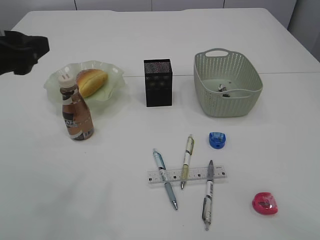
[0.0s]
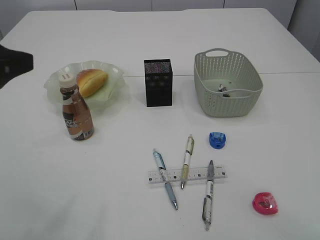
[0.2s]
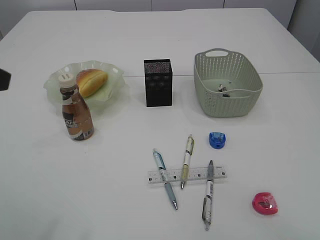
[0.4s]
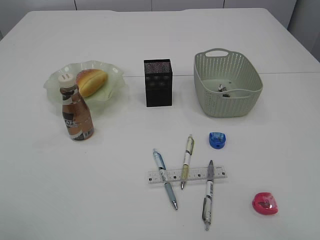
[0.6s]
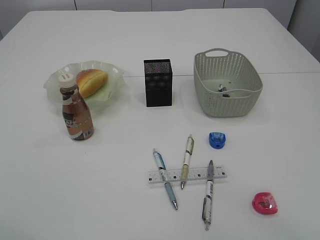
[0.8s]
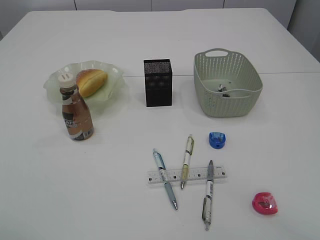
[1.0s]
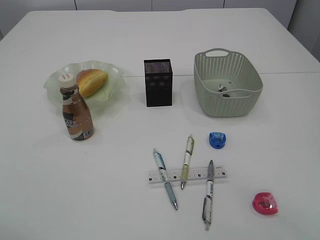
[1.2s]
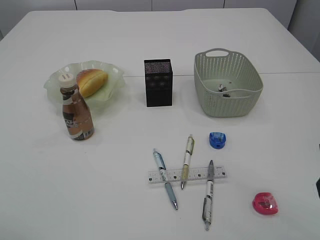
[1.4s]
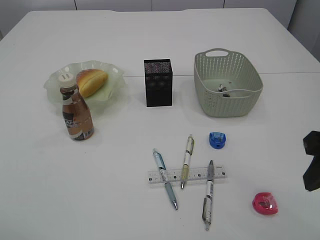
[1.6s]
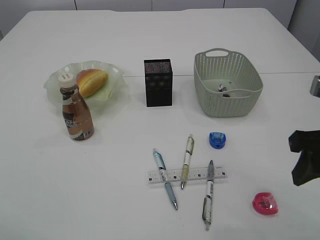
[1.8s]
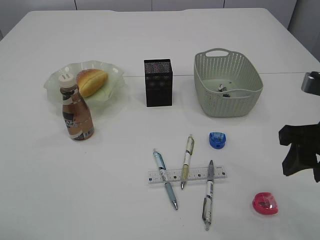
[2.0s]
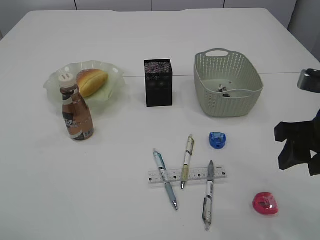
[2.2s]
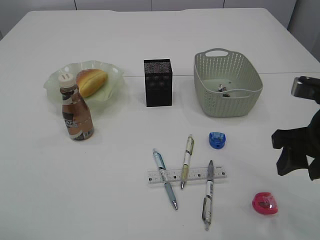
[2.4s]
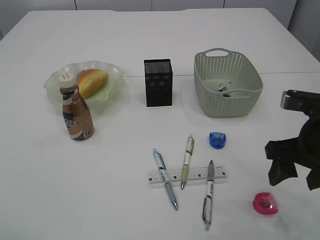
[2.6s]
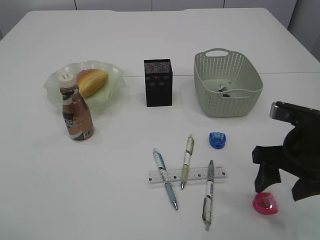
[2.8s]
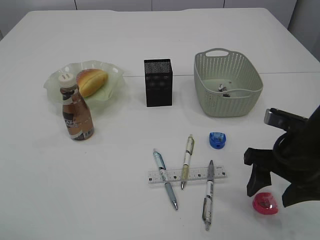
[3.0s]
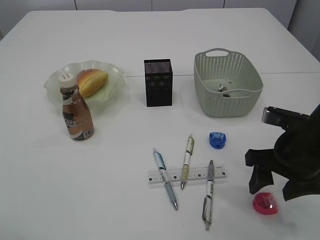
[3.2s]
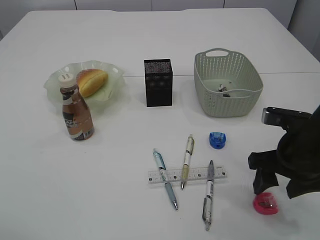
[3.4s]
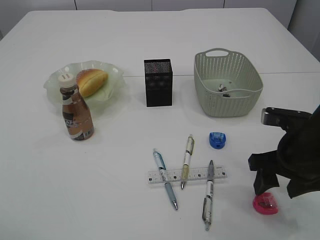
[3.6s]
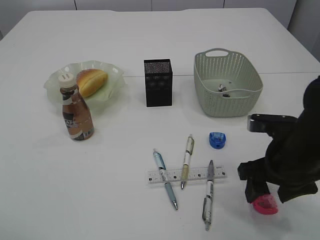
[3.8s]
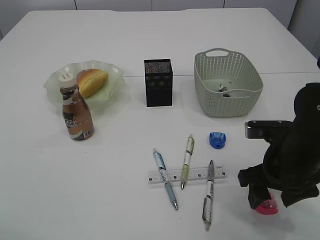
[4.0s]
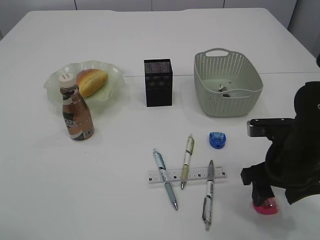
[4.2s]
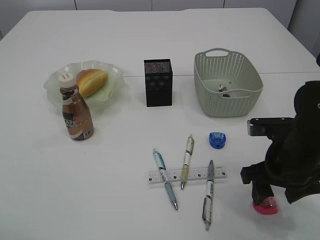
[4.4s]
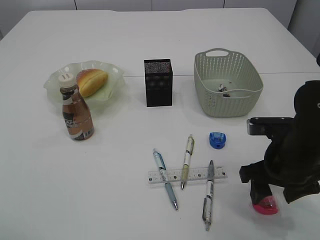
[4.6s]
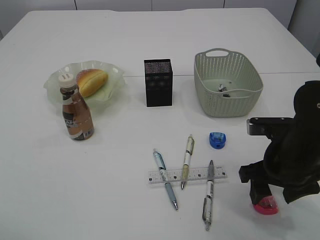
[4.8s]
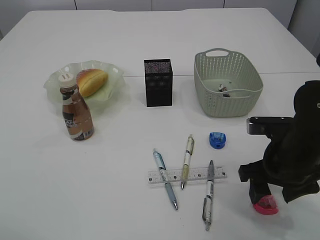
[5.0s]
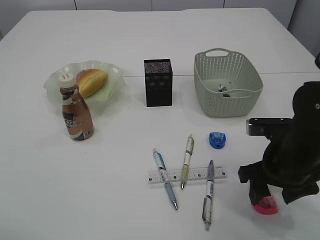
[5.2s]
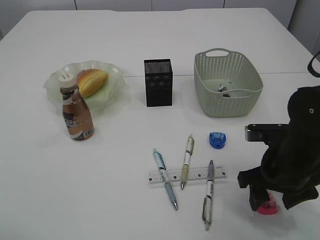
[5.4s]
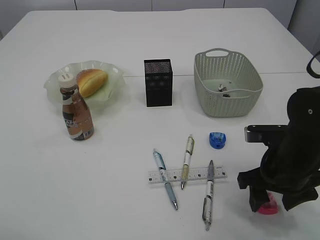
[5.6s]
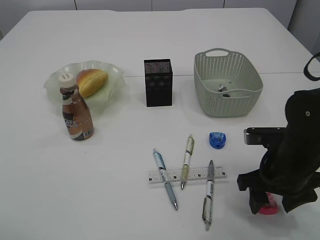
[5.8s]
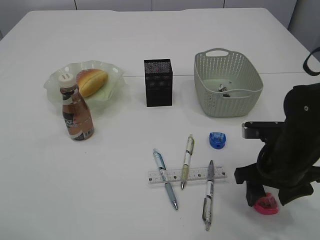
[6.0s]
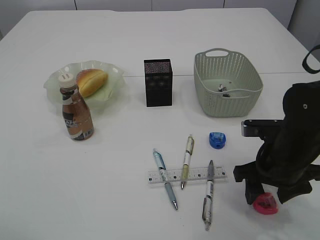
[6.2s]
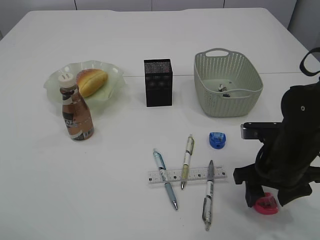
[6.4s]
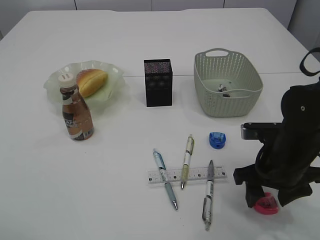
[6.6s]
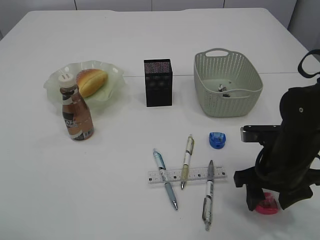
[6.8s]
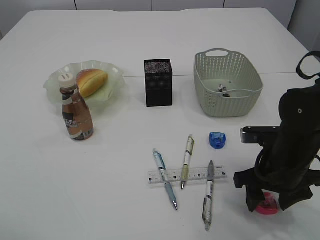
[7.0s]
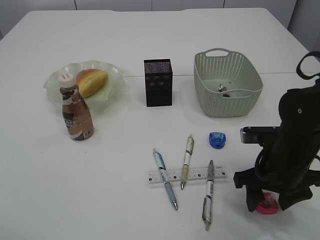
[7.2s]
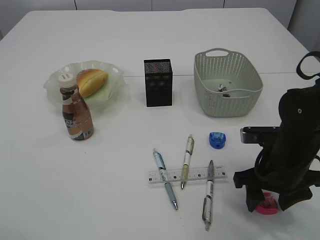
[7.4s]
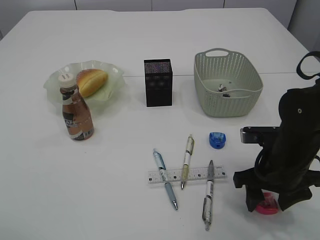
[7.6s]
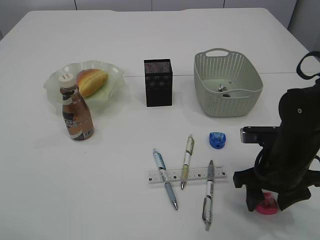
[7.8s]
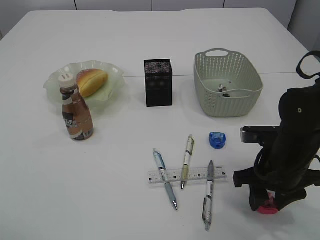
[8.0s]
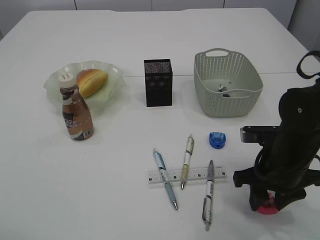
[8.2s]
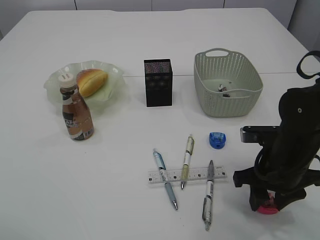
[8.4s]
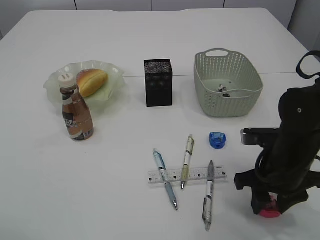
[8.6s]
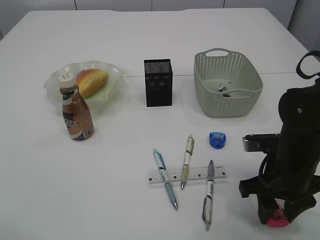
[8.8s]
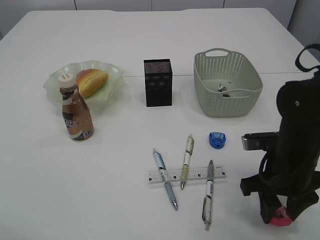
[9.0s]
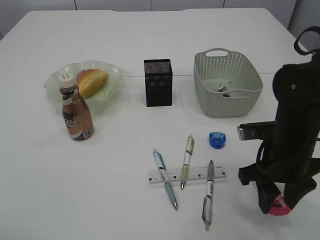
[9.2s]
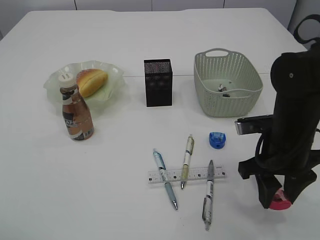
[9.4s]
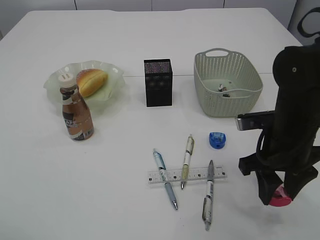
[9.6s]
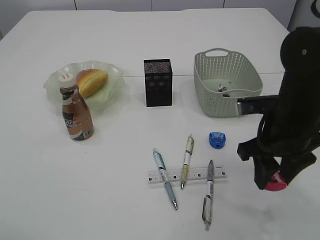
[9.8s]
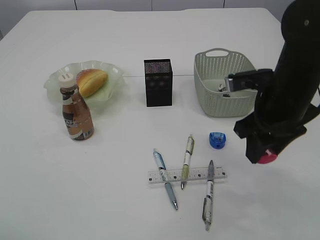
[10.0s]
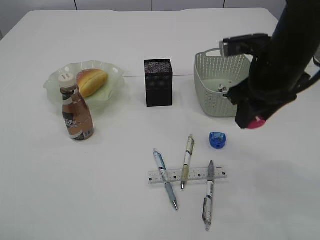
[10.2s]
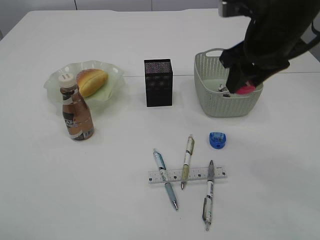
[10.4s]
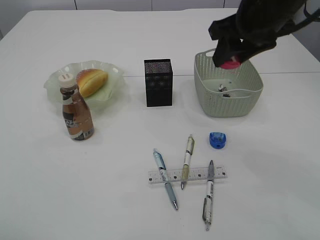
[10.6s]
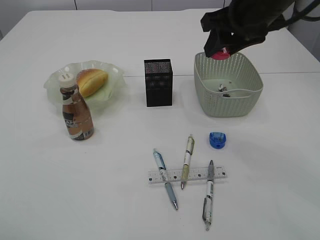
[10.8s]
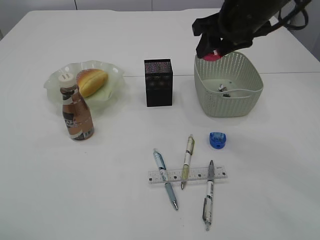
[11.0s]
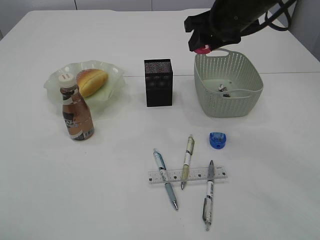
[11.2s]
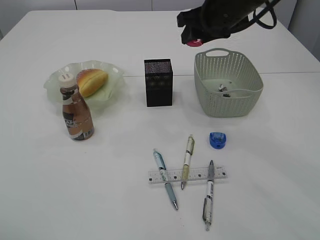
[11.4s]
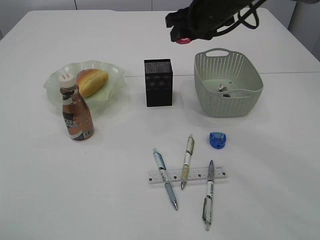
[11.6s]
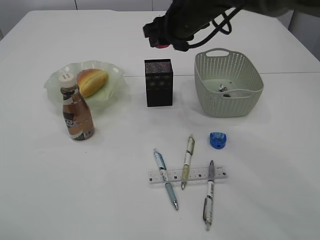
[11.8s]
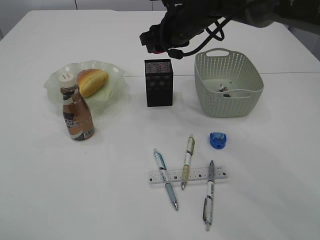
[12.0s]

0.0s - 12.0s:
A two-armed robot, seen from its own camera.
Step, 0.0s - 9.2s: Pick up the red pencil sharpener.
0.0s - 1.6s: The right gripper moves forward and downward, roughly 10 cm. Meanwhile the left gripper heads backward and upward, covering about 10 cm.
1.6s - 3.0s: The right gripper travels downward and forward by approximately 15 cm.
3.0s - 6.0s: The grippers stay close to where they were, moving slightly.
6.0s - 7.6s: Both grippers stay put.
7.6s - 9.0s: The grippers make only small movements.
9.0s - 10.4s: The right gripper goes roughly 20 cm upward and forward.
10.4s - 12.0s: The right gripper is displaced forward and to the left by some 15 cm.

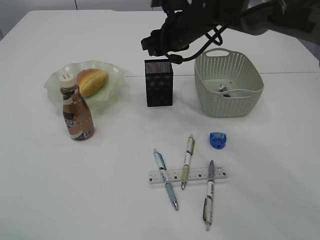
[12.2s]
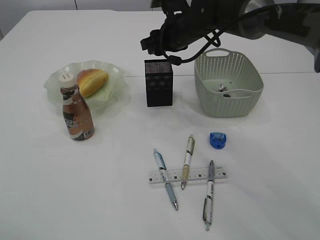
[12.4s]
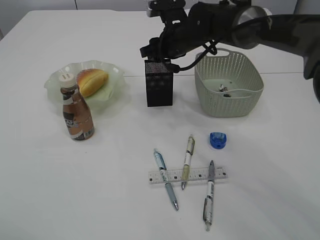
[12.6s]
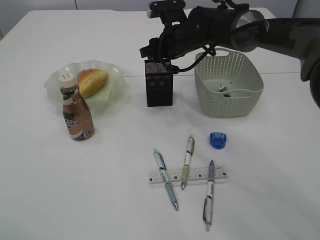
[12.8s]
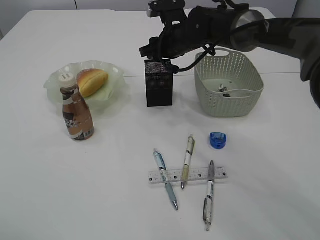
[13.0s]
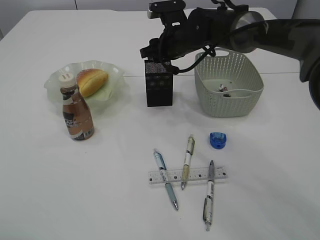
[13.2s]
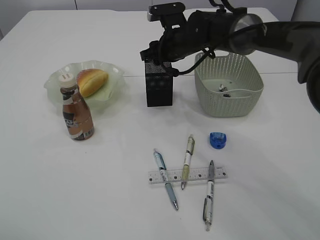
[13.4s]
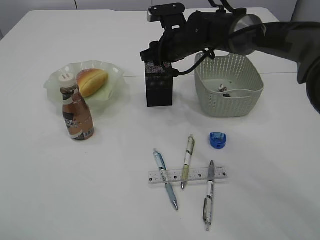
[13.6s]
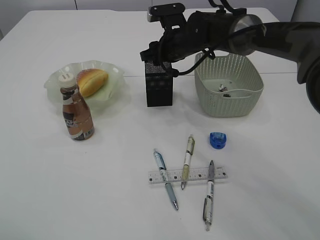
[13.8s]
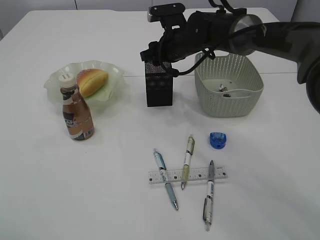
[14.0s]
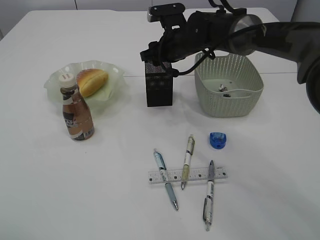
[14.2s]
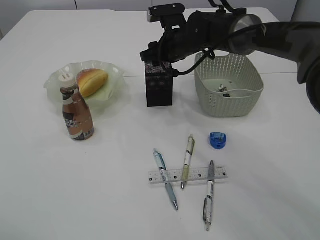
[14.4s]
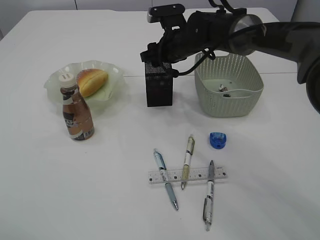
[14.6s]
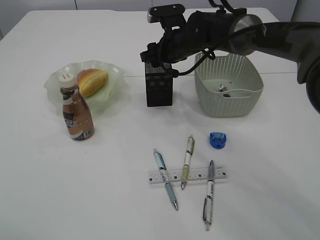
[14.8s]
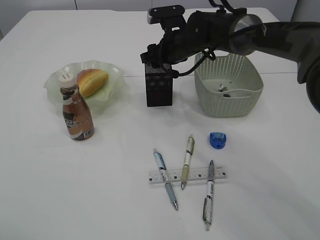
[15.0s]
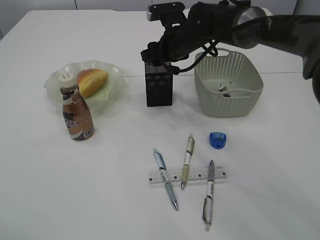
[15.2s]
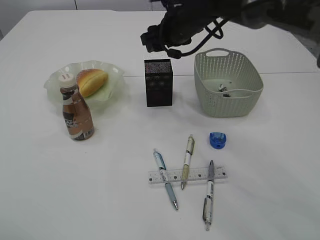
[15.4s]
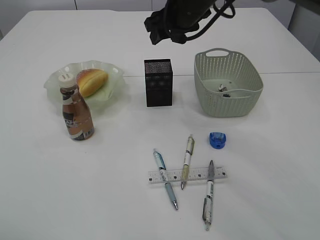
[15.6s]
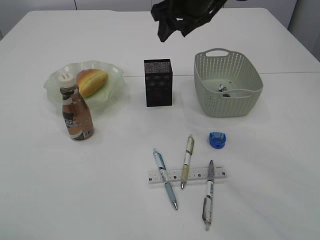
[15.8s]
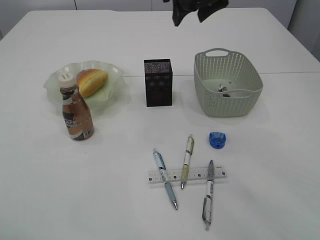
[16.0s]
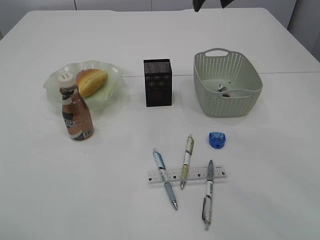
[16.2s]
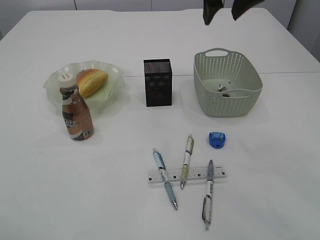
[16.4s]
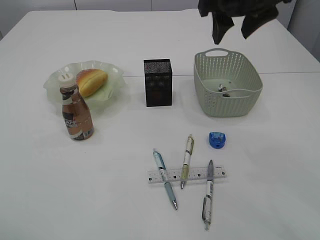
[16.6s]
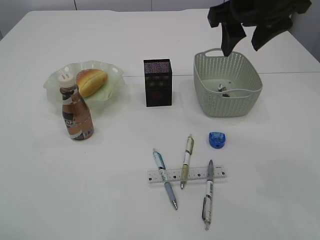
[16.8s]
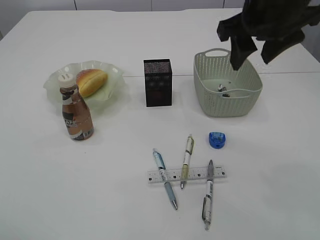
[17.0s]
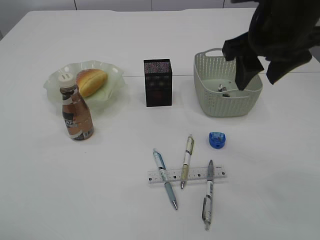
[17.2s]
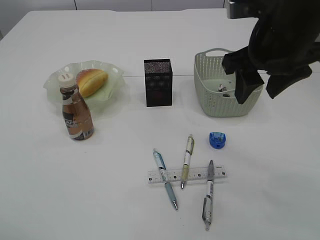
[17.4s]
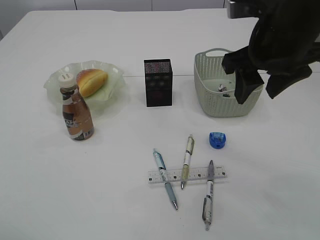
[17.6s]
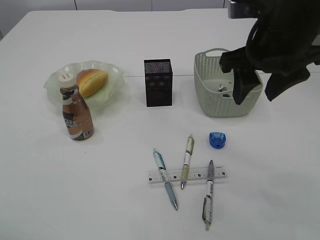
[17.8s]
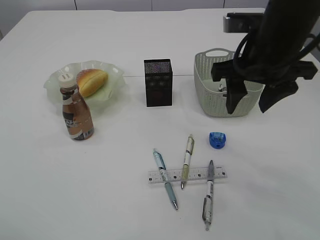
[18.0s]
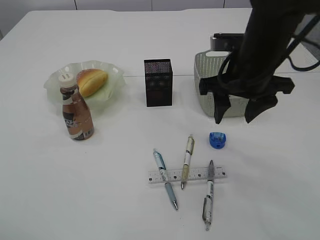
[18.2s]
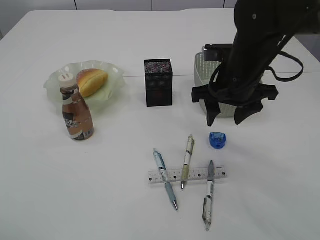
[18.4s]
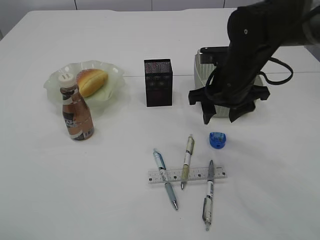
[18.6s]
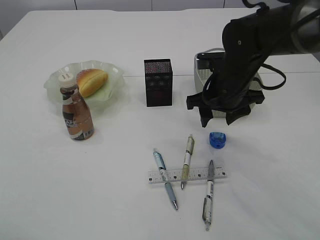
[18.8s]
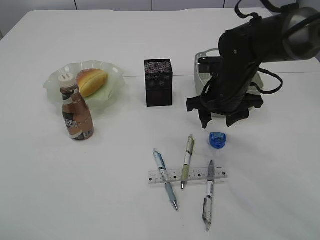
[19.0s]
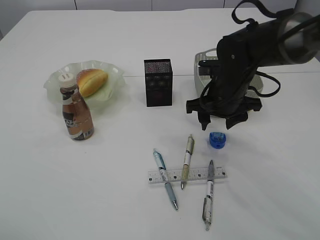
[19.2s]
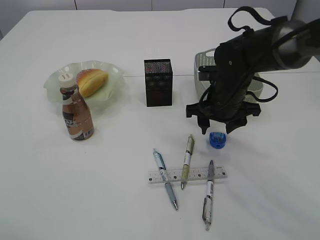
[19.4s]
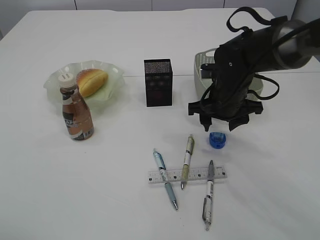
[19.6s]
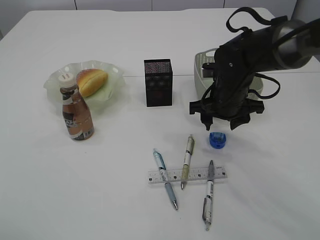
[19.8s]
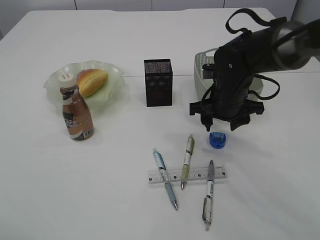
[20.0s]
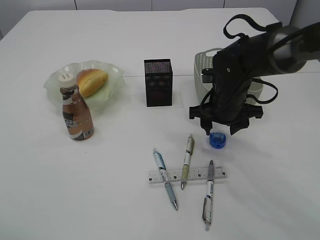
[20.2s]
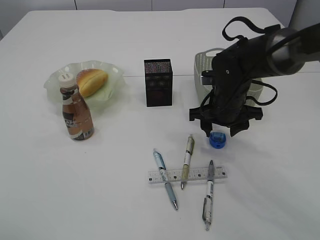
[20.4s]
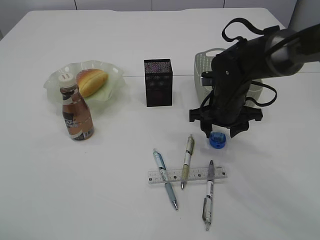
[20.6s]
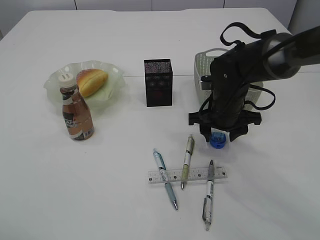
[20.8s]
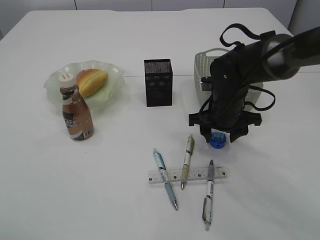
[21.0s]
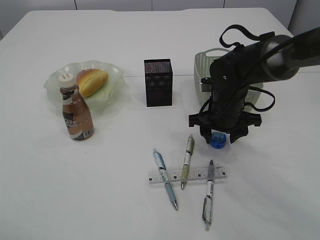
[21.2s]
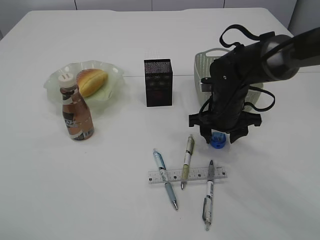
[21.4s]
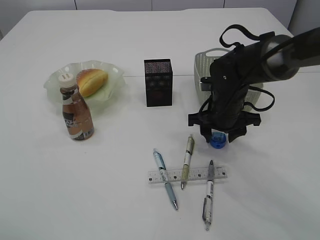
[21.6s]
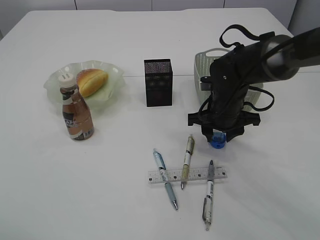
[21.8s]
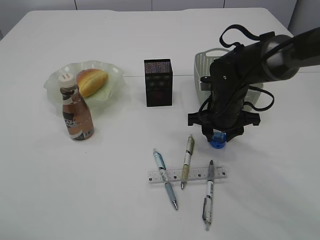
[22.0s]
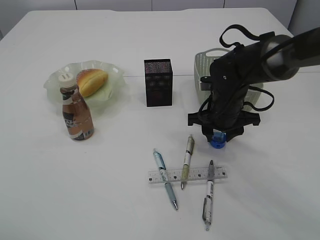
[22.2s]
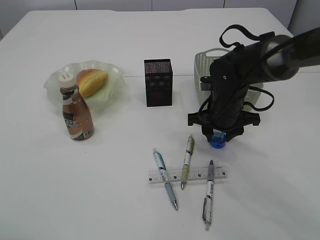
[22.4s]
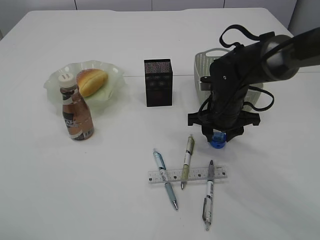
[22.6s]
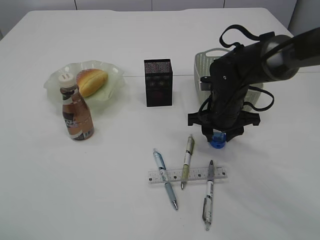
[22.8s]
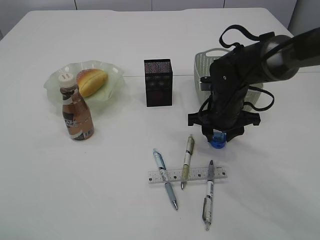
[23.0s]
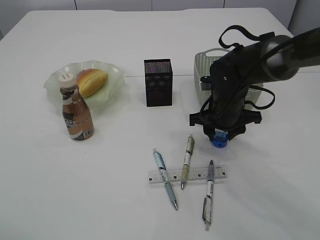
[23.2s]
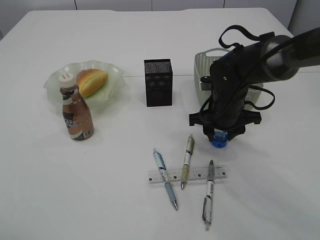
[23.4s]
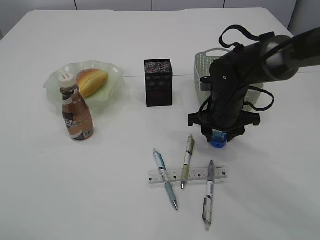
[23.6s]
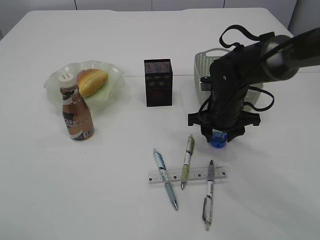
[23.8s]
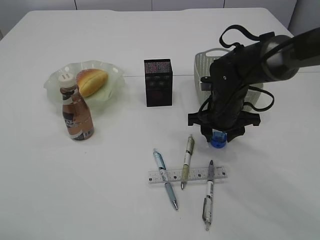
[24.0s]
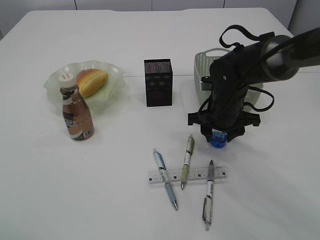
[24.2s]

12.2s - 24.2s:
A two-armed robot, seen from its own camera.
Step, 12.2s - 15.6s: Place the red pencil sharpener into the pen holder.
12.2s - 13.8s: The grippers stay close to where they were, moving slightly.
13.8s - 15.2s: Both grippers stay about where they are.
15.2s - 16.6s: The right gripper moves upward, backward and to the right, roughly 20 cm.
16.6s - 18.2s: The right gripper goes about 10 cm downward.
18.2s - 19.8s: The right gripper travels downward and forward by roughly 10 cm.
19.8s - 21.2s: The grippers stay close to where they were, moving slightly.
21.2s - 24.2s: Both grippers stay about where they are.
